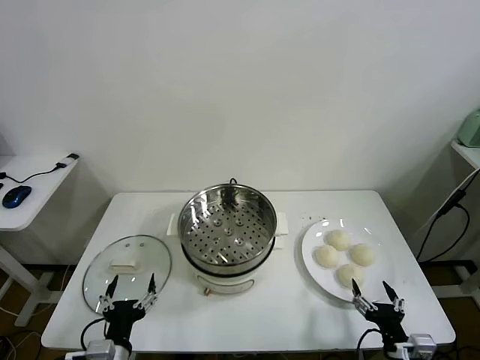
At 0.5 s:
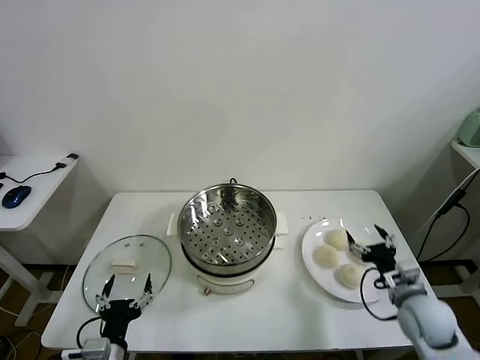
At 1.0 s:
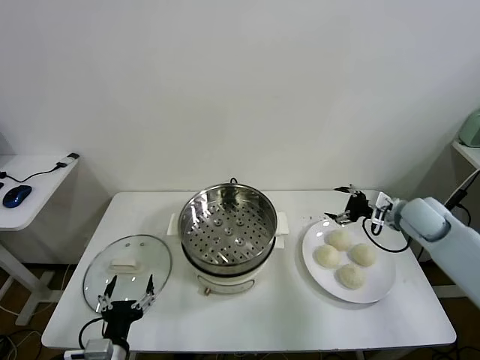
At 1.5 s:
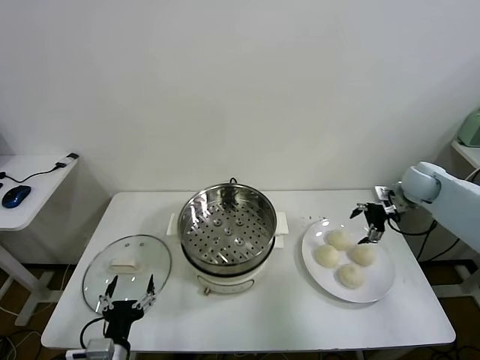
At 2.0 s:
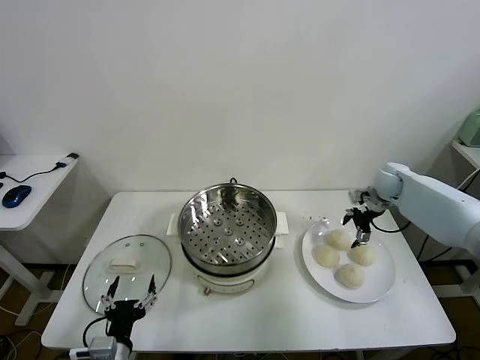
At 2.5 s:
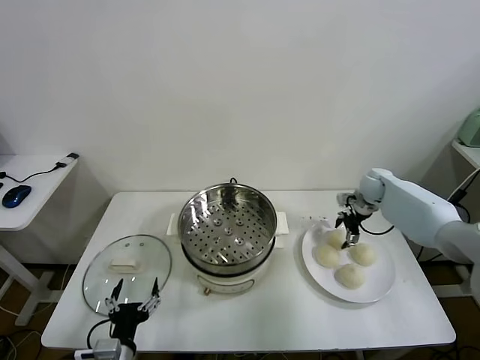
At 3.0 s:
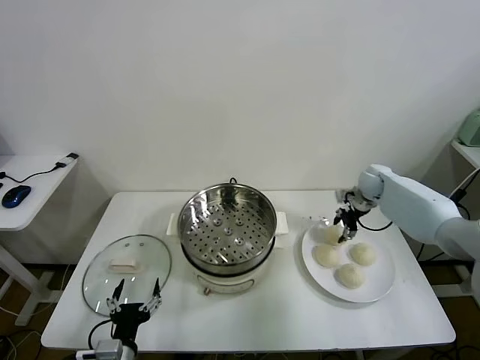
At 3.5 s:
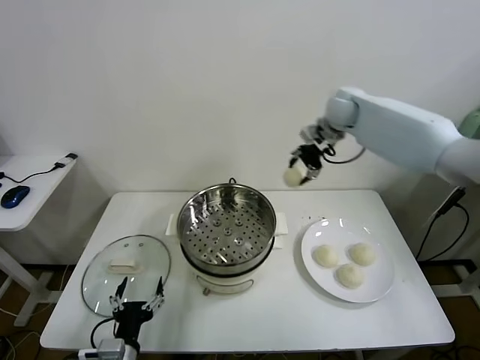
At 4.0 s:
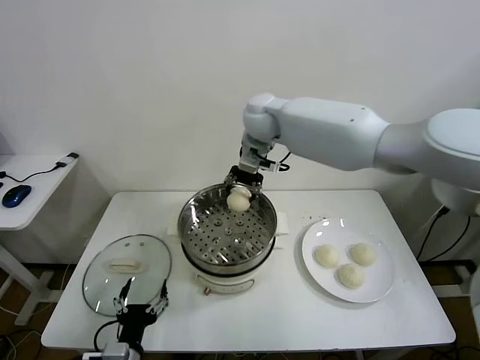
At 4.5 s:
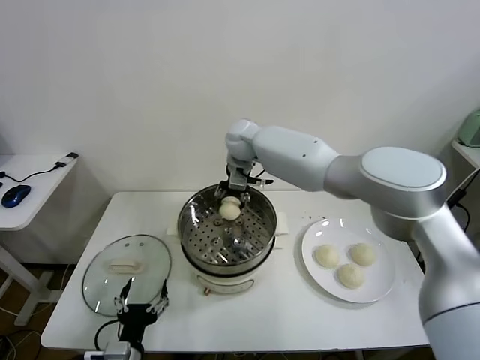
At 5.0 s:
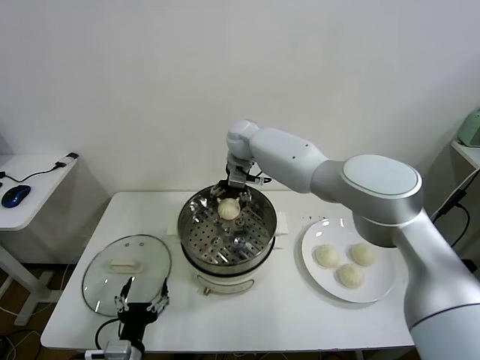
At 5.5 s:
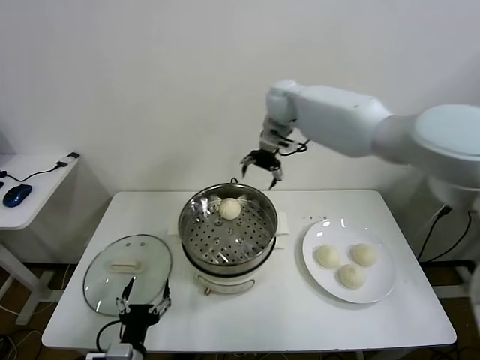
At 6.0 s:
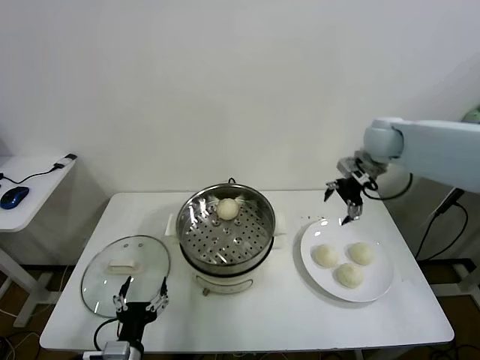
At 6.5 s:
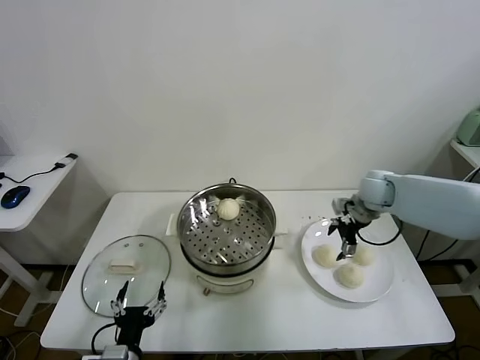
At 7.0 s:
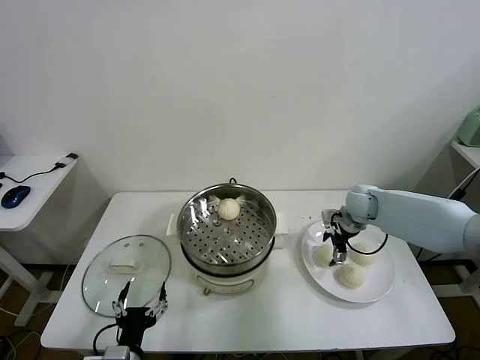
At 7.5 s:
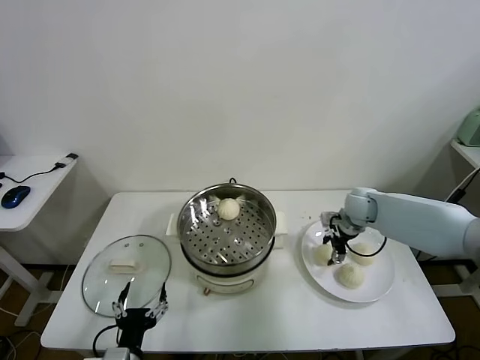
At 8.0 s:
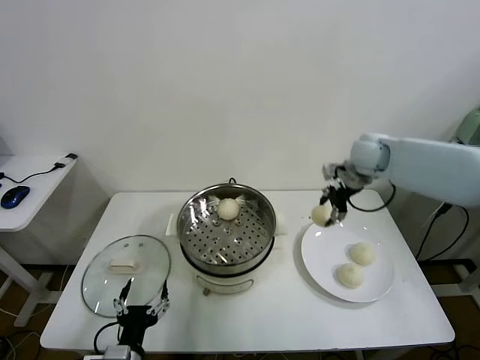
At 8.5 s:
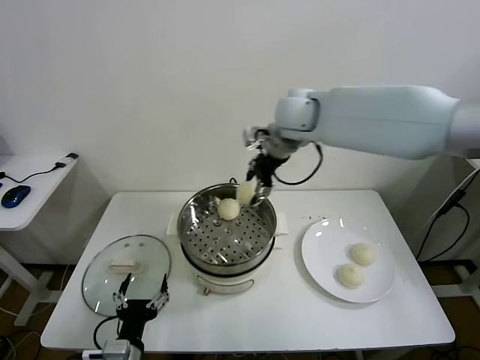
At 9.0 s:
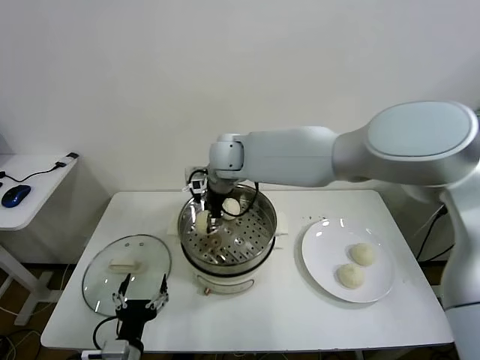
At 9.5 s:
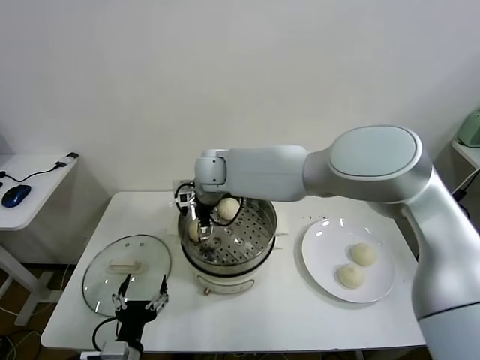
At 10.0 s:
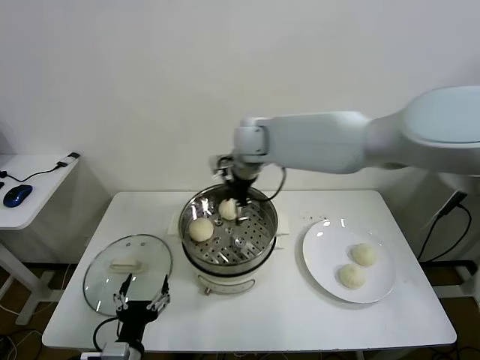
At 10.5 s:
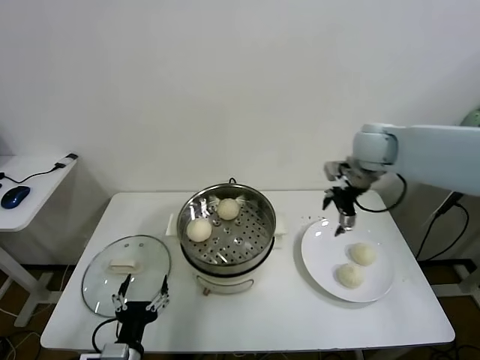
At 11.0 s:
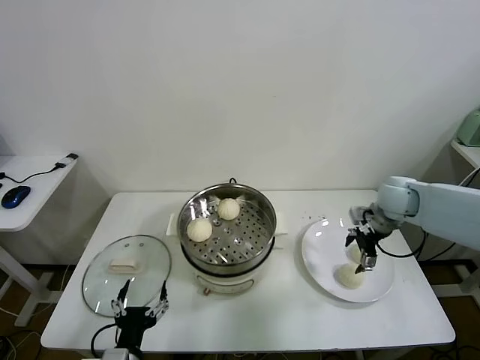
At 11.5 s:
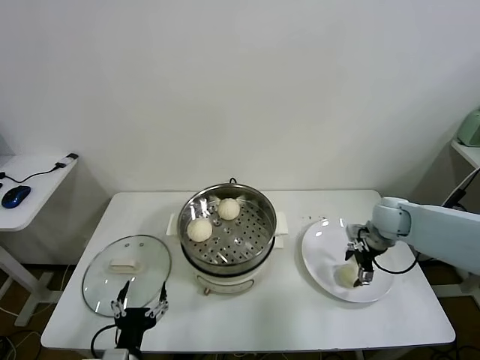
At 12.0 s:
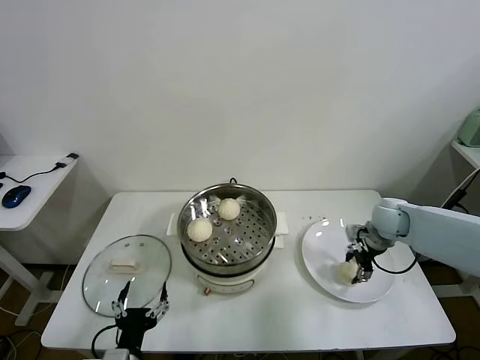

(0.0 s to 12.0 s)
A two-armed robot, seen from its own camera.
Task of the whole recording: take steamed baozi put them in steamer.
Step, 0.0 s - 3.0 s: Grasp the baozi in the plate with right gripper.
Step, 3.5 s - 5.0 s: Place the baozi on the steamer with right gripper.
Step, 5.5 s - 7.0 s: Grasp the baozi in the plate with right gripper.
Step, 8.0 s - 9.5 s: Place the baozi on the steamer with right gripper.
Step, 10.0 s - 12.0 s: Grasp the baozi in the plate with right gripper.
2.0 s - 4.0 s: The right gripper moves to the left and upward, some 40 cm, and closes its fingers.
4.0 s - 6.0 s: The right gripper is displaced to the right by about 30 cm, and opens up.
6.0 s - 8.0 s: The right gripper travels downward and back again, about 15 cm each way, and closes up.
8.0 s - 10.0 s: The right gripper is displaced to the left by roughly 25 cm, and opens up.
10.0 s - 12.0 s: The right gripper heads to the right and downward, covering some 40 cm, and closes its fingers.

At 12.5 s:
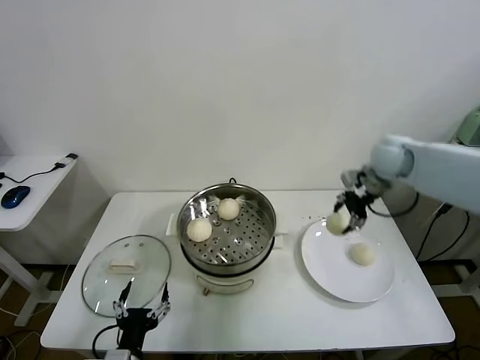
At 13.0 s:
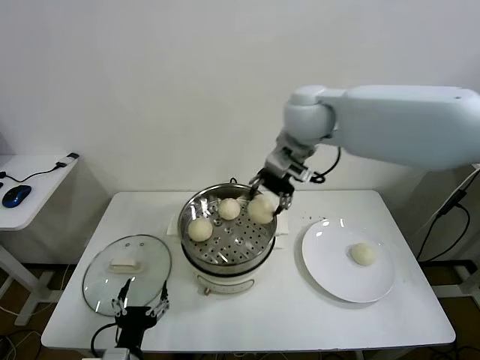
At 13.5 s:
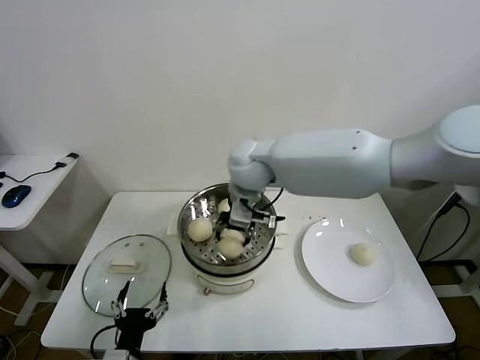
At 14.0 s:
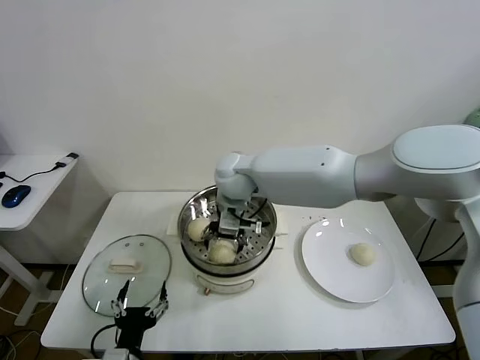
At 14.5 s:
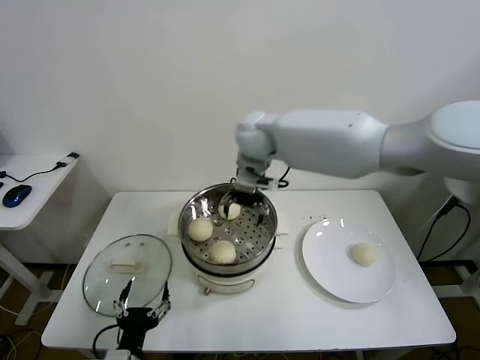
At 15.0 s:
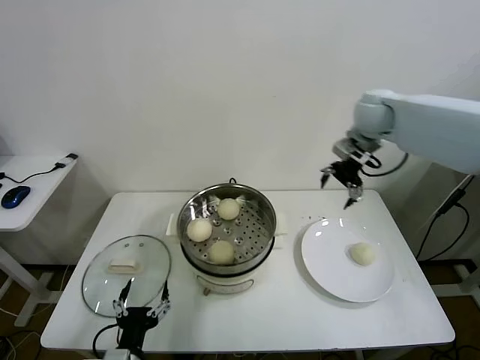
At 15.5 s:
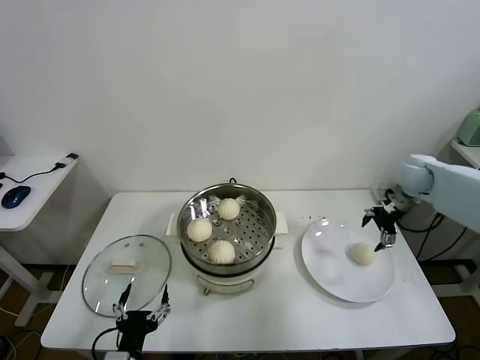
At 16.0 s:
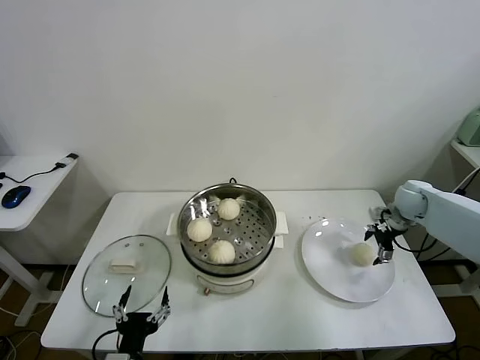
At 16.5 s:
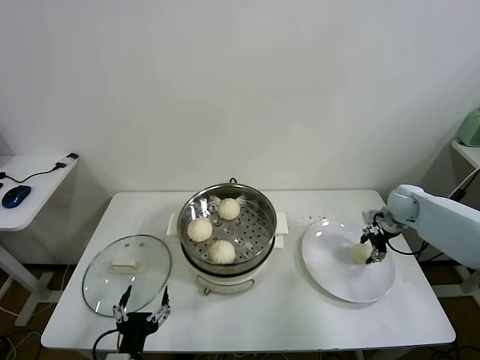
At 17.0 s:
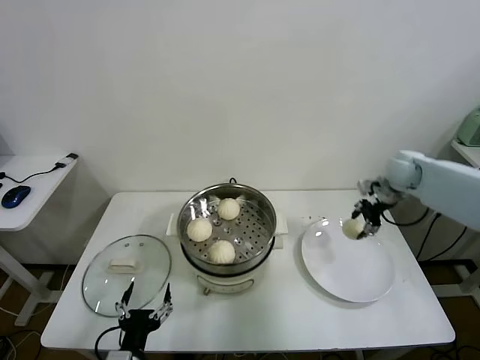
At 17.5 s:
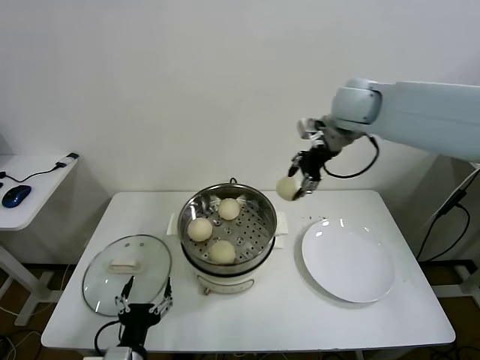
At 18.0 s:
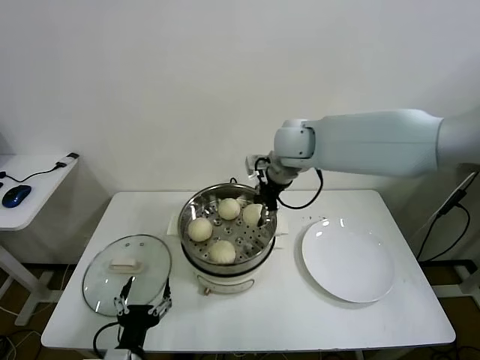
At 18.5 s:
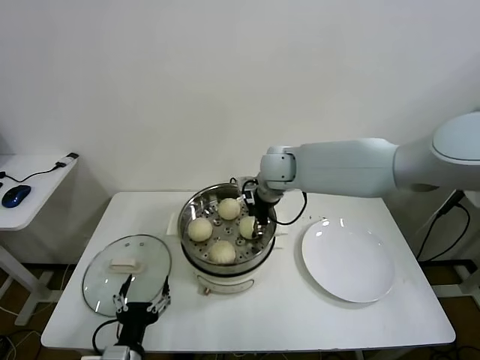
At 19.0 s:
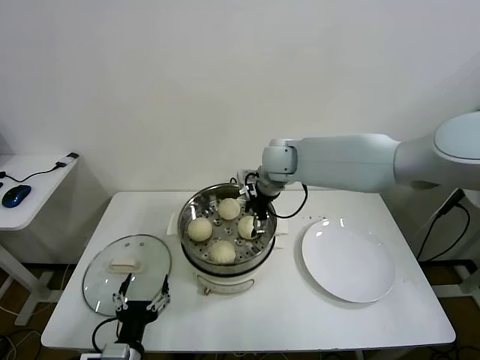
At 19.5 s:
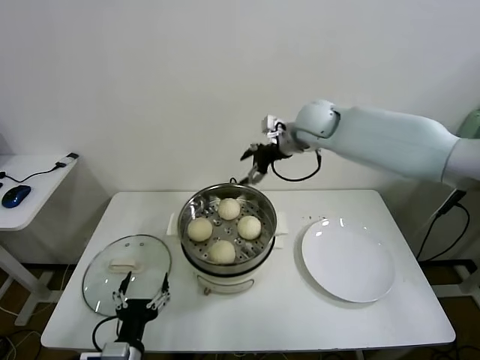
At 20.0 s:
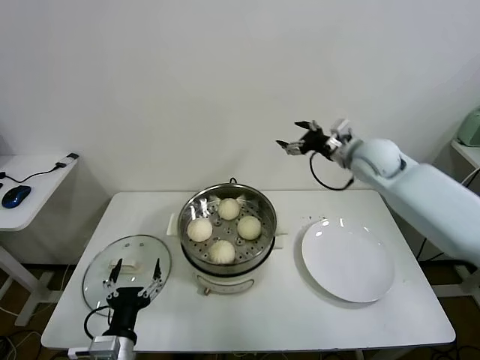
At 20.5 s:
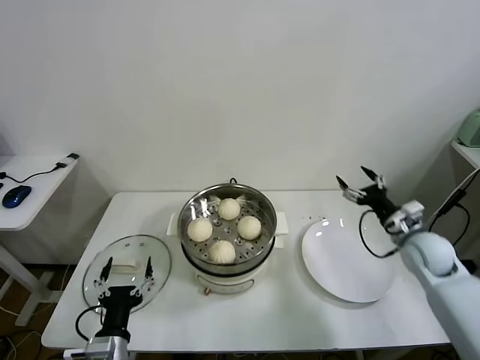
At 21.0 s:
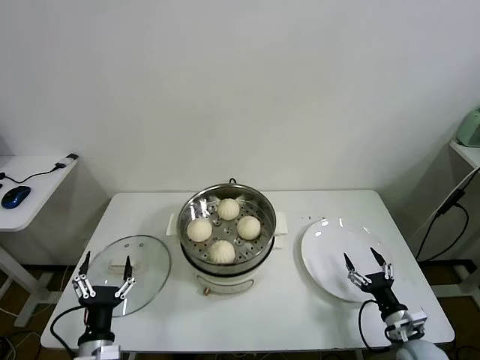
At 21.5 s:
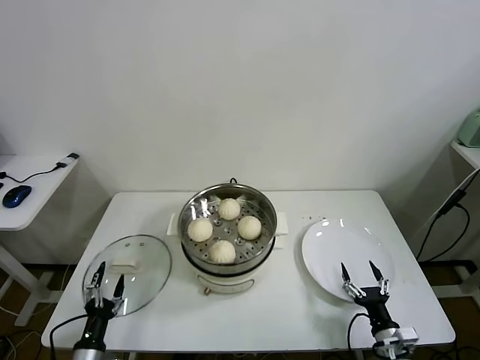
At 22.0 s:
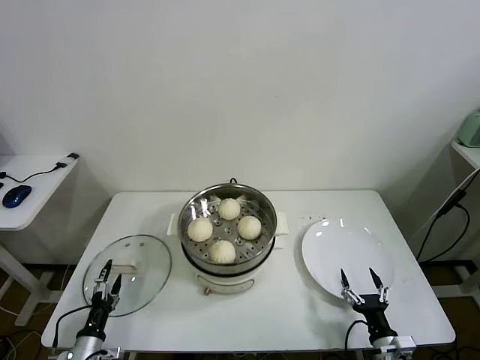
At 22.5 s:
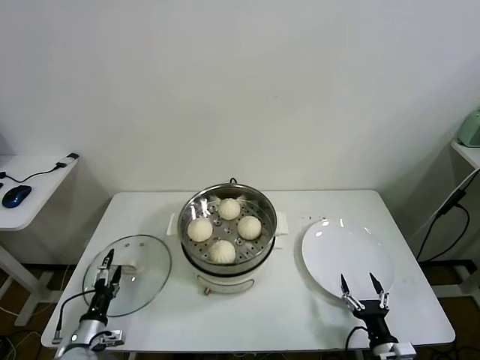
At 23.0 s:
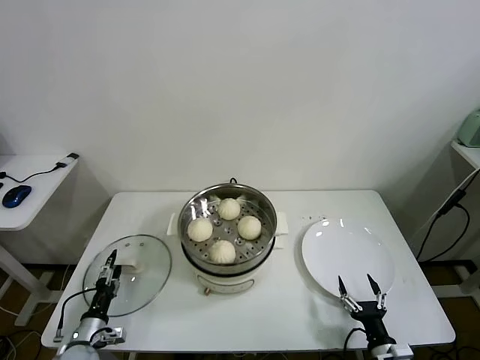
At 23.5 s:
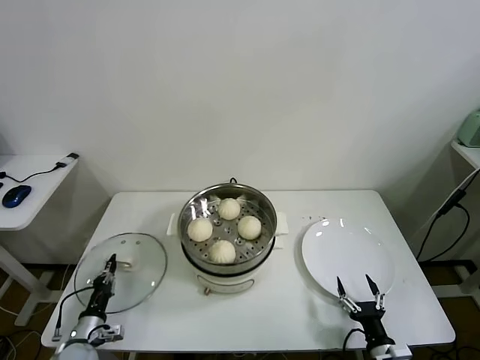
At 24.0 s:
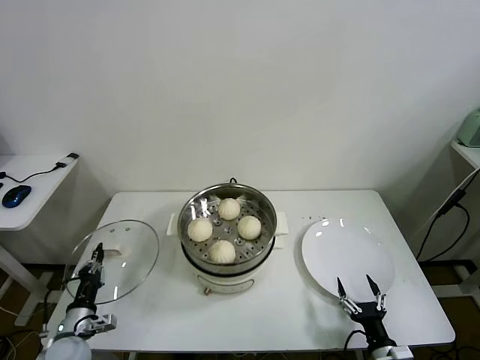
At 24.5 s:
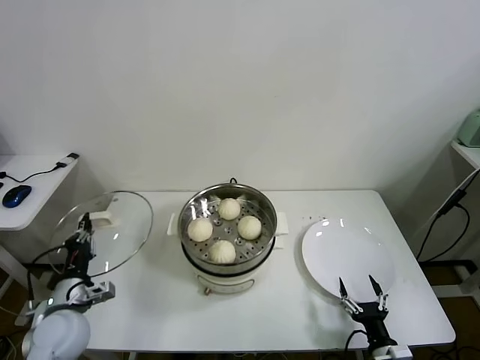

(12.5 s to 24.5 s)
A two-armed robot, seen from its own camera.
Task of the whole recording: take steamed baozi put them in steamer.
Step, 12.5 s - 14.0 s: Place the baozi on the steamer with right gripper.
Step, 14.5 s - 16.5 s: Grasp the baozi in the plate with right gripper.
Step, 17.0 s - 18.5 s: Place the baozi on the steamer with right gripper.
Step, 19.0 s - 23.5 s: Grasp the pot lid with left gripper.
12.5 s - 14.5 s: The right gripper goes some 30 cm to the left, and opens its fingers.
14.5 s - 16.5 s: The right gripper travels to the right and downward by some 50 cm, and closes up.
16.5 s - 18.5 s: The right gripper shifts roughly 35 cm to the left.
18.5 s - 20.5 s: The right gripper shifts approximately 35 cm to the right, downward and backward, and opens its fingers.
20.5 s - 22.5 s: The left gripper is displaced downward, to the left and forward by about 20 cm; the right gripper heads backward and downward, covering roughly 30 cm.
22.5 s - 24.5 s: The left gripper travels upward by approximately 15 cm, and closes.

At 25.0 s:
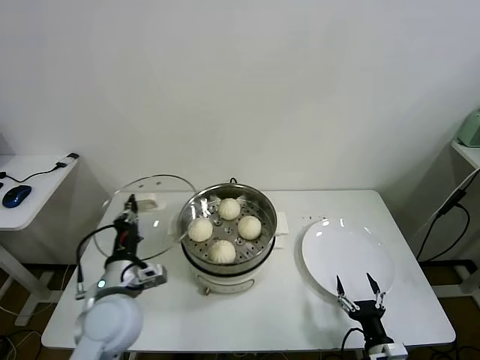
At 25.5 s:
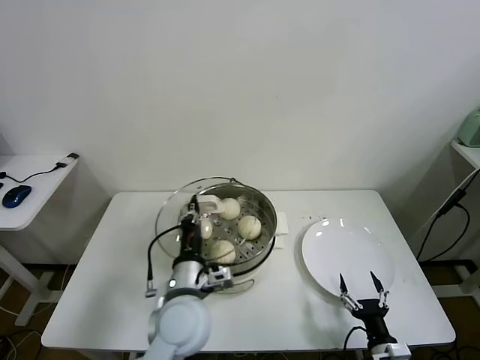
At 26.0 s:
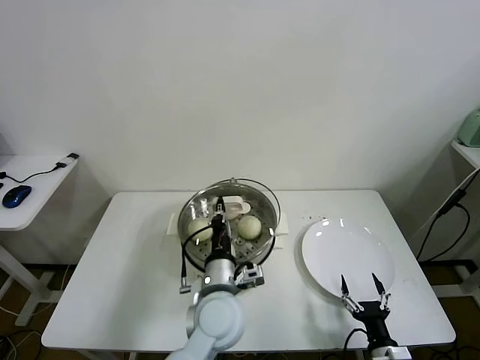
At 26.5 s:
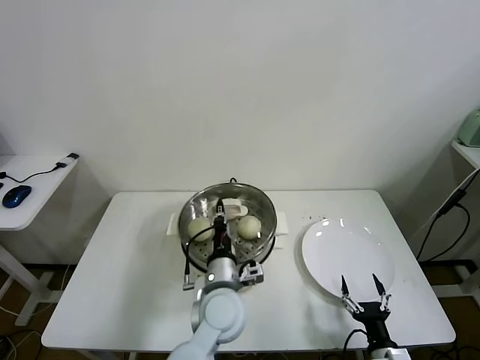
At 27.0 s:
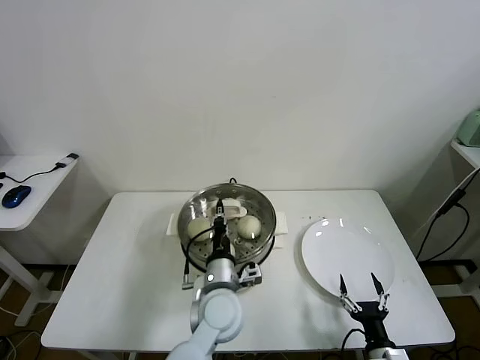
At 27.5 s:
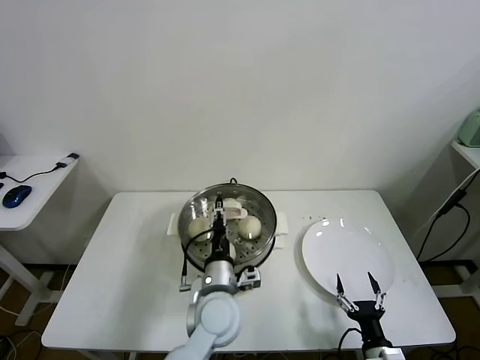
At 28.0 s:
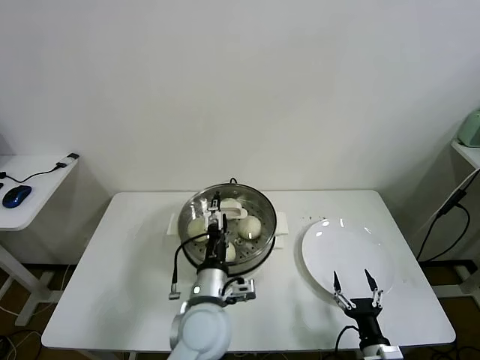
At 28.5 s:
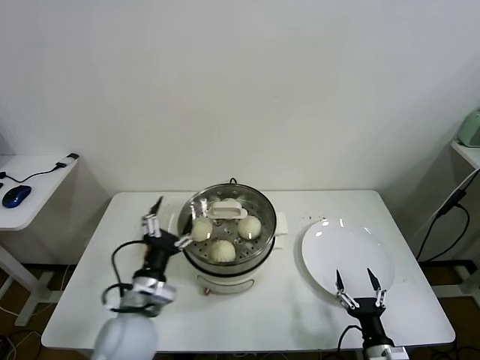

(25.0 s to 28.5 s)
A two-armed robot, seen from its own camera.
Task of the whole recording: take steamed baozi put them in steamer.
Step, 25.0 s - 27.5 s: Place the pot lid on the steamer with left gripper.
25.0 s - 27.0 s: The left gripper moves to the right, about 20 cm.
27.0 s - 28.5 s: The left gripper shifts approximately 15 cm to the left and backward, and opens its fingers.
